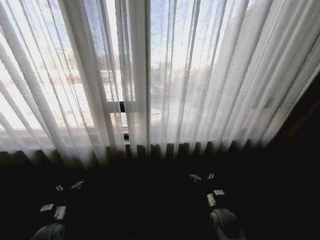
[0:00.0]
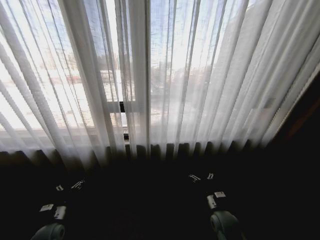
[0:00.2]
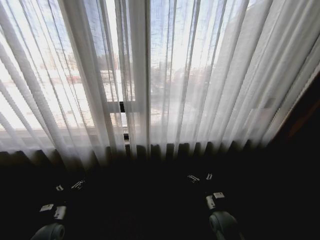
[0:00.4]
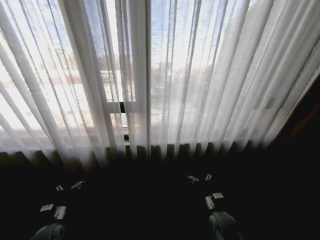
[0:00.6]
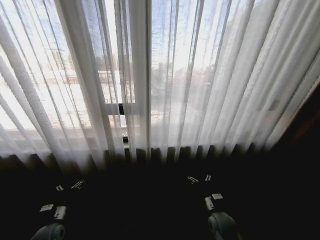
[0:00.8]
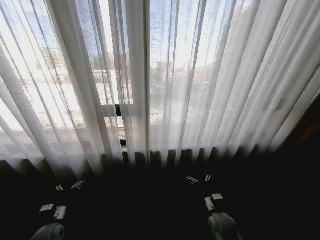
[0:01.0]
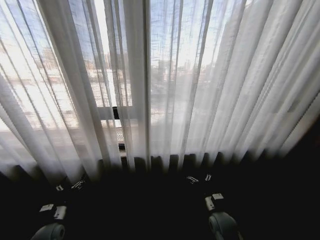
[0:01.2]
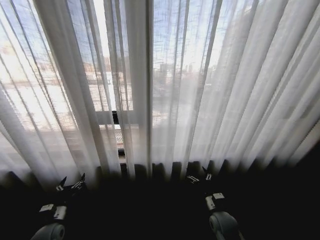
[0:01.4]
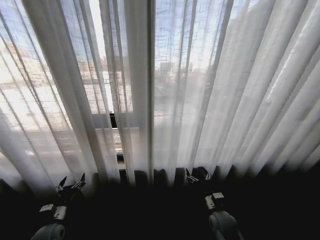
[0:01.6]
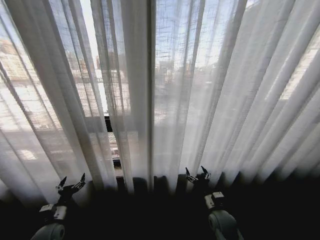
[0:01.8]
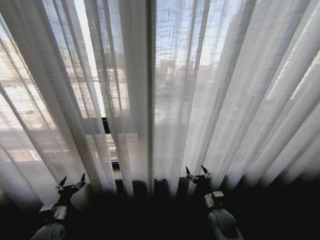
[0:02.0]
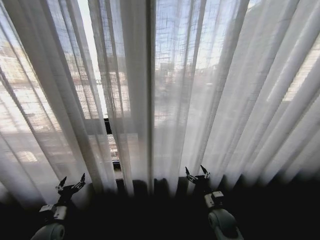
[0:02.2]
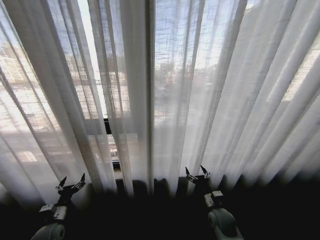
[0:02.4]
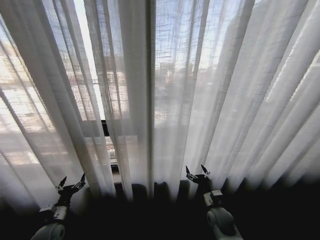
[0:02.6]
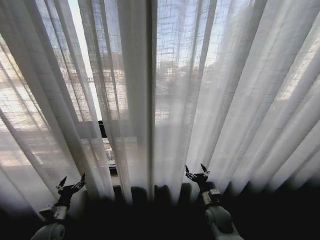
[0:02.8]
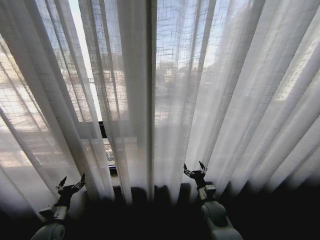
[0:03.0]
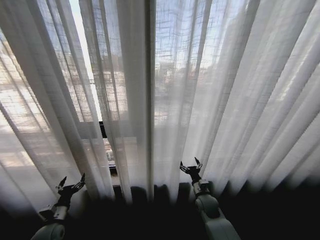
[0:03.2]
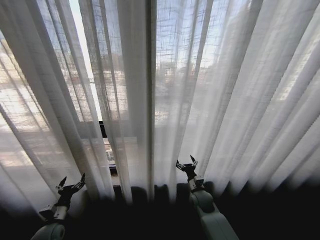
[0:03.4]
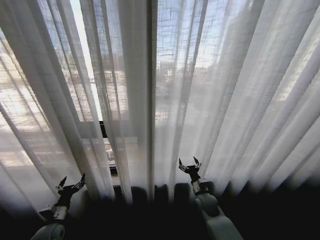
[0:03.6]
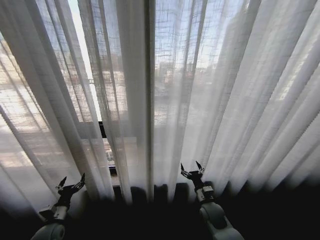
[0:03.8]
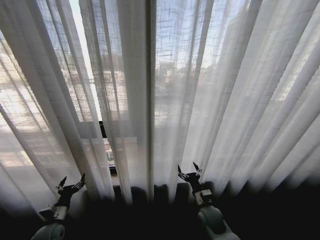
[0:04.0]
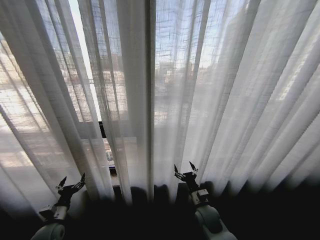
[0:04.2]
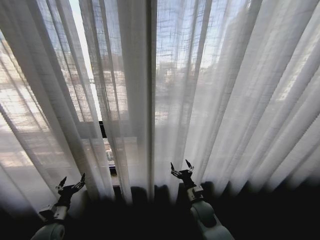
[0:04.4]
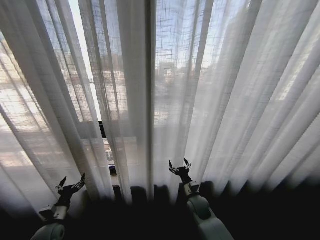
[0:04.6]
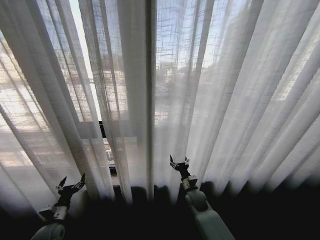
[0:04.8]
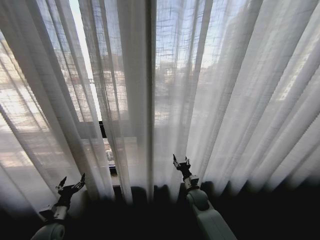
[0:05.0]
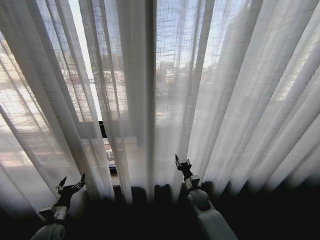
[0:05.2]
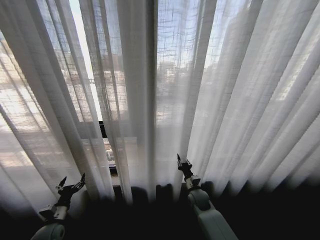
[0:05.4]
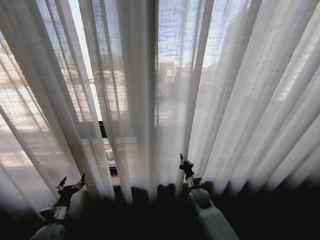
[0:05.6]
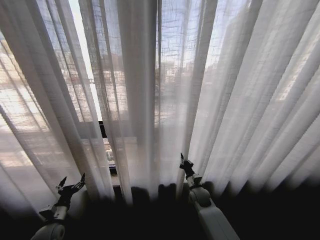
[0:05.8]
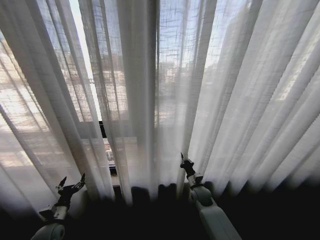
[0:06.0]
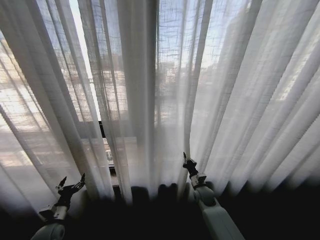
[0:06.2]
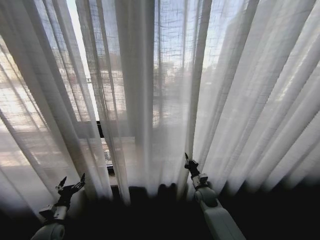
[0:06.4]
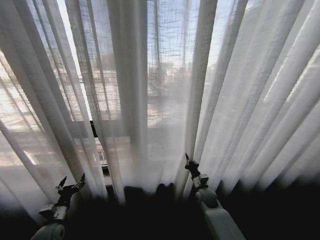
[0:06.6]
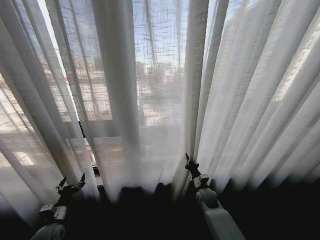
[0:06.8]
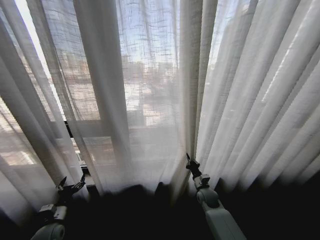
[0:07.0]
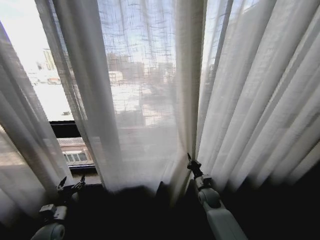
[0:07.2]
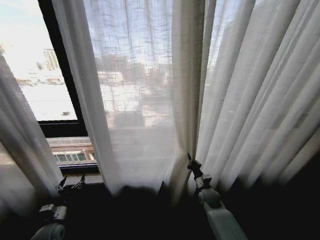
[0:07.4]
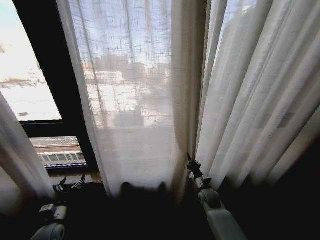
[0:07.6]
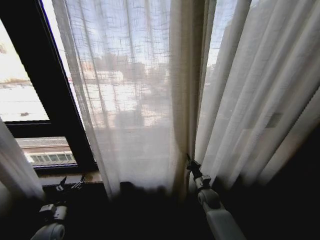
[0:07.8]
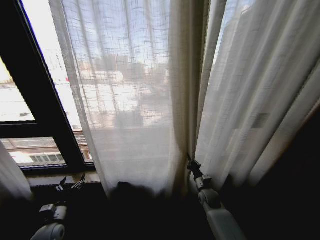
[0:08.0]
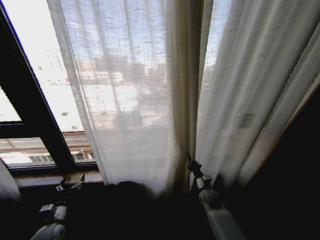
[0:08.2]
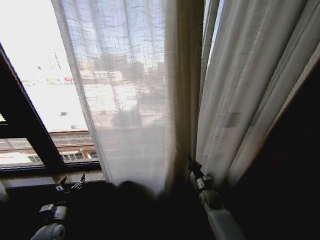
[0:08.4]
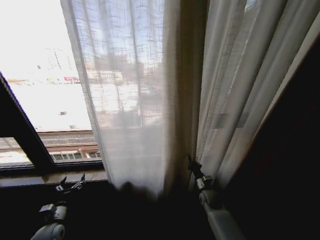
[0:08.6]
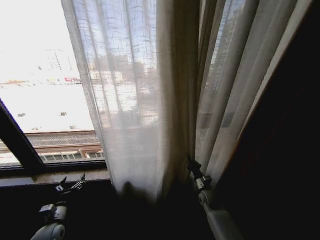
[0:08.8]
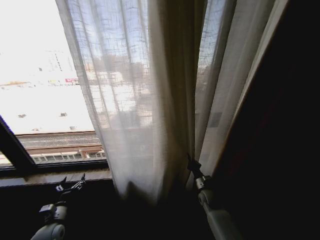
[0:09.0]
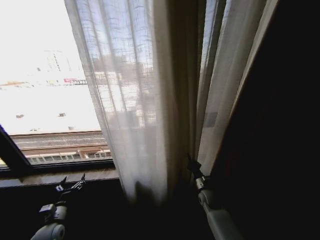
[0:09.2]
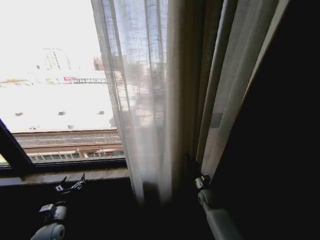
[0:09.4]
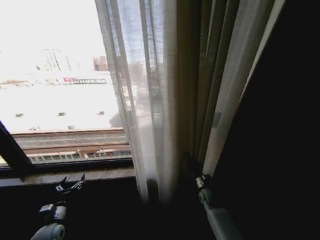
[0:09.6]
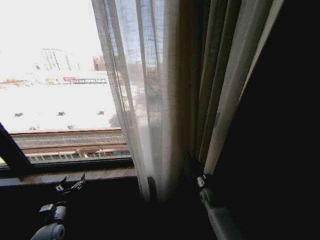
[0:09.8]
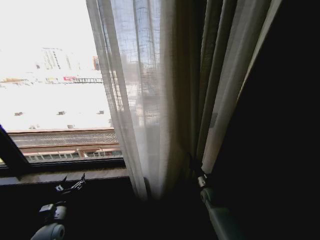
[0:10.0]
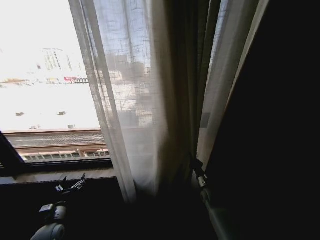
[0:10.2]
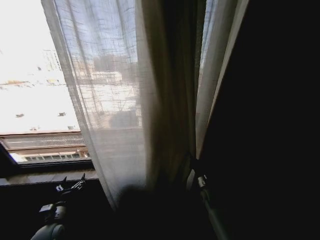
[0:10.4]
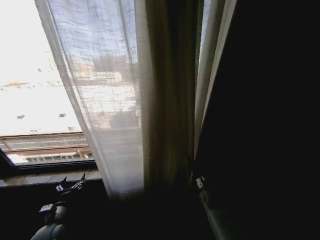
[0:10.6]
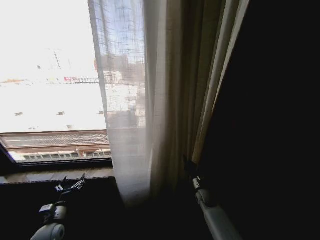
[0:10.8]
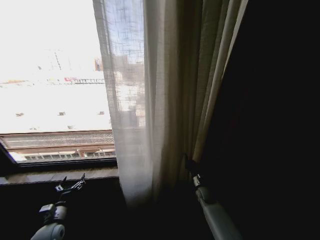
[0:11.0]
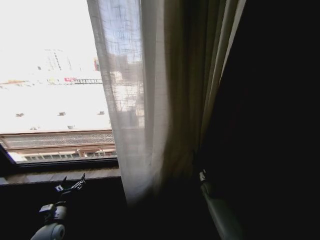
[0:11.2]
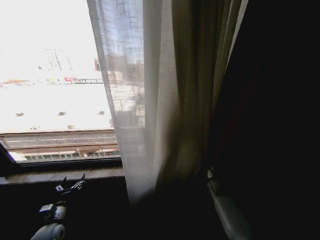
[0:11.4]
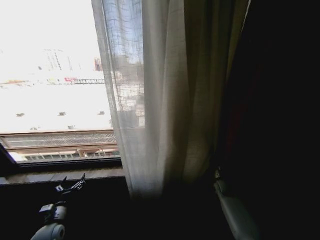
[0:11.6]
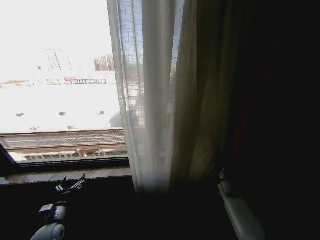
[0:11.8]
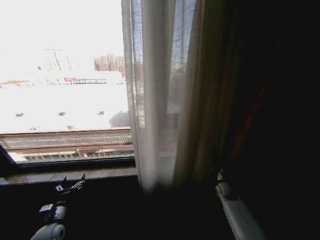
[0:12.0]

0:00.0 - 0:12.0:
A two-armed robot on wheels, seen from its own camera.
Task of the whole recording: Open the curtains by pulling them apart, changing their state from closed to fully open.
0:03.0 - 0:04.4: The right gripper goes some 5 cm to the left.
0:04.4 - 0:06.0: The right gripper shifts approximately 10 cm forward, and closes up.
0:10.4 - 0:12.0: The right gripper goes about 10 cm to the right.

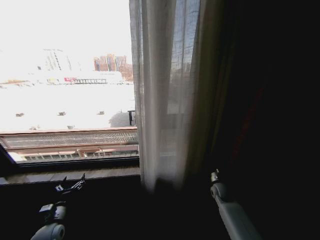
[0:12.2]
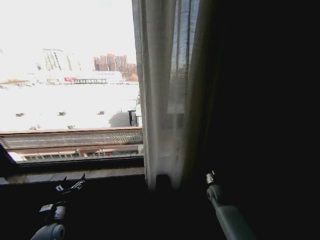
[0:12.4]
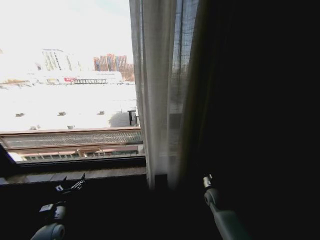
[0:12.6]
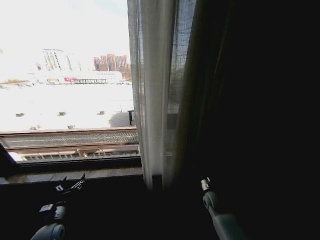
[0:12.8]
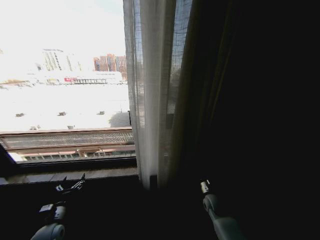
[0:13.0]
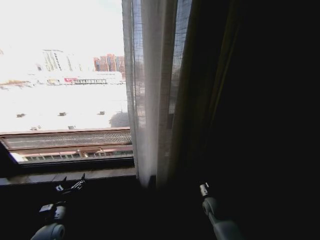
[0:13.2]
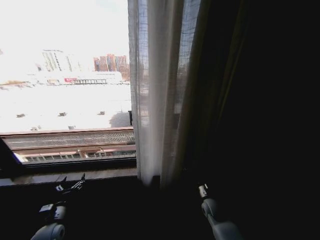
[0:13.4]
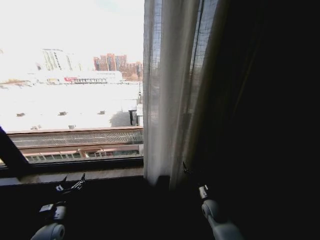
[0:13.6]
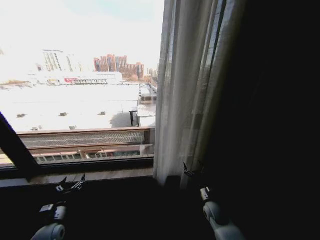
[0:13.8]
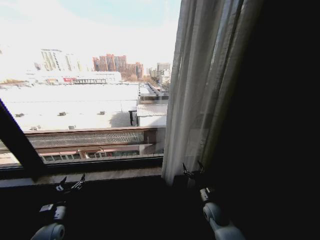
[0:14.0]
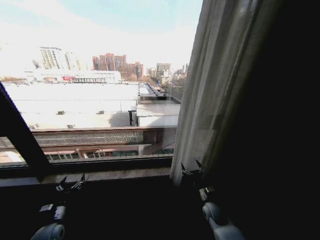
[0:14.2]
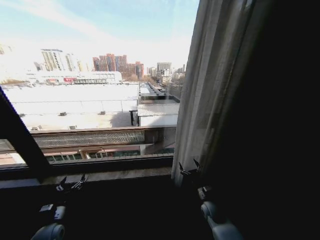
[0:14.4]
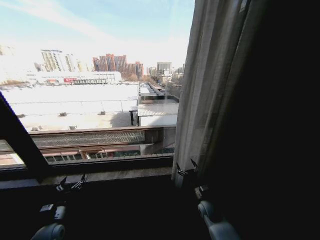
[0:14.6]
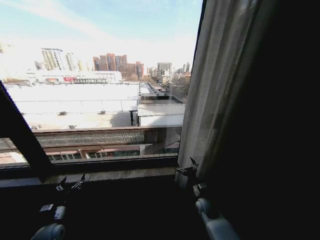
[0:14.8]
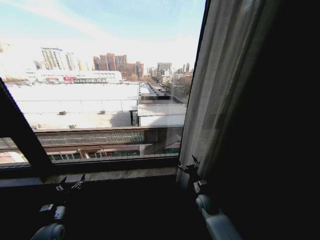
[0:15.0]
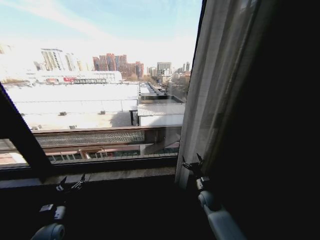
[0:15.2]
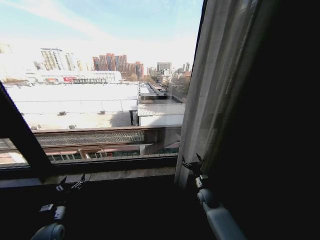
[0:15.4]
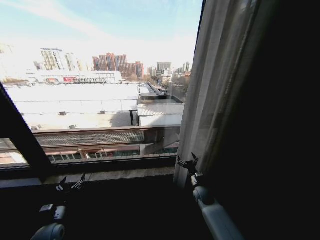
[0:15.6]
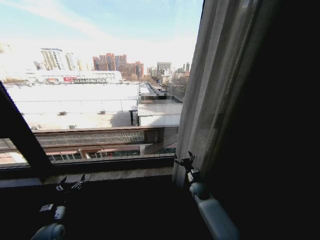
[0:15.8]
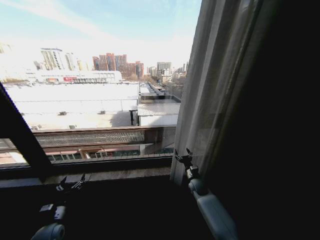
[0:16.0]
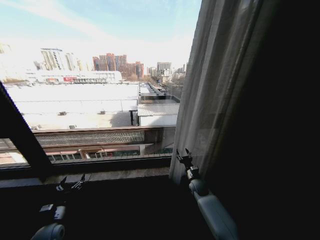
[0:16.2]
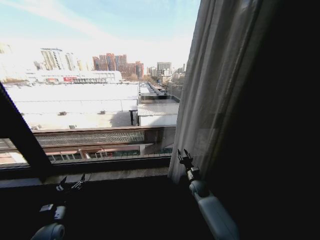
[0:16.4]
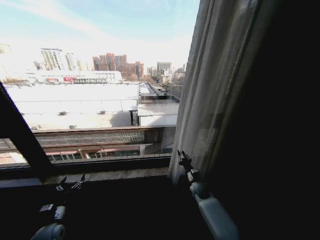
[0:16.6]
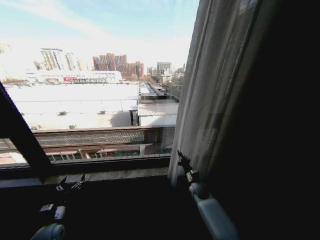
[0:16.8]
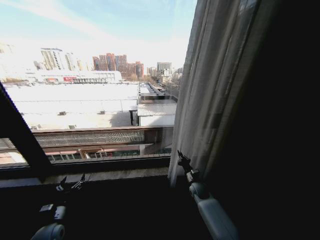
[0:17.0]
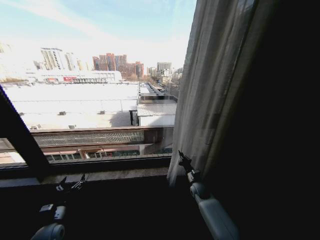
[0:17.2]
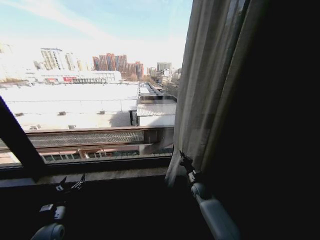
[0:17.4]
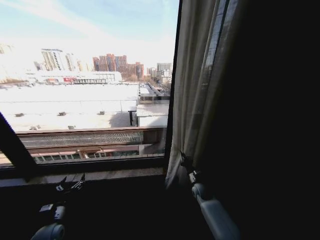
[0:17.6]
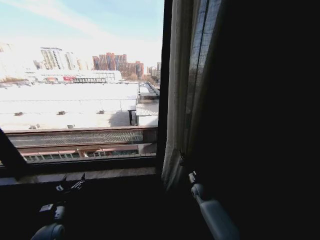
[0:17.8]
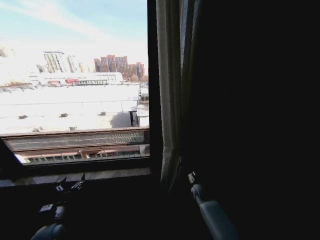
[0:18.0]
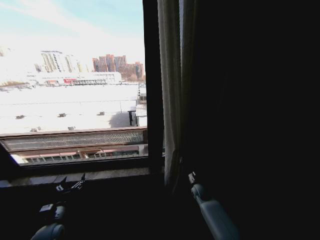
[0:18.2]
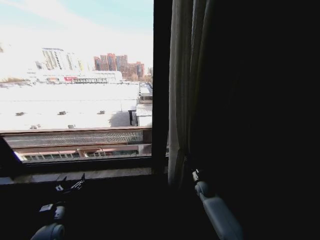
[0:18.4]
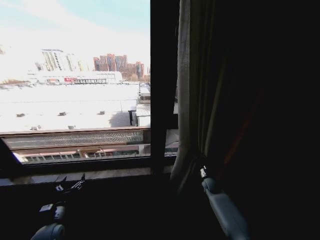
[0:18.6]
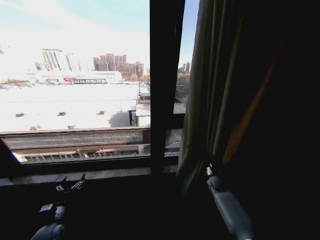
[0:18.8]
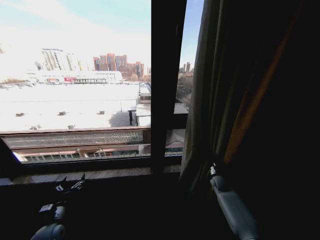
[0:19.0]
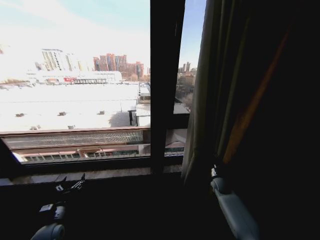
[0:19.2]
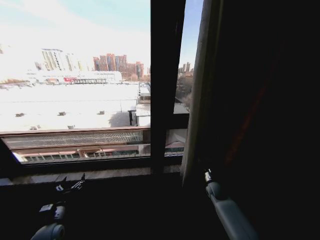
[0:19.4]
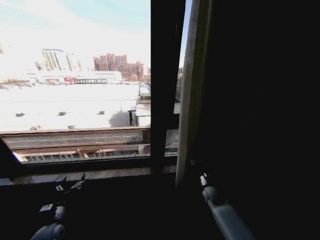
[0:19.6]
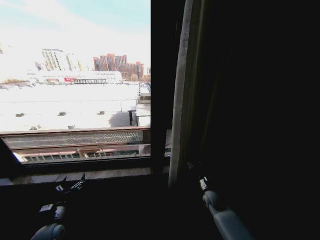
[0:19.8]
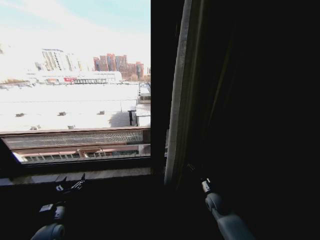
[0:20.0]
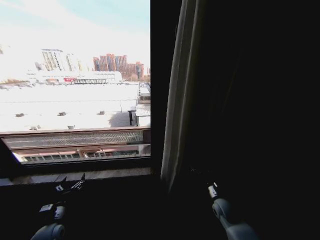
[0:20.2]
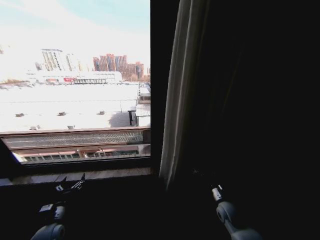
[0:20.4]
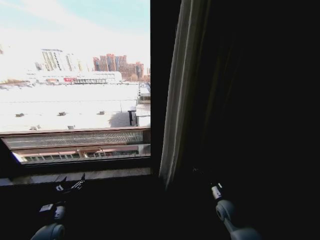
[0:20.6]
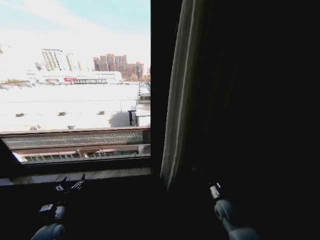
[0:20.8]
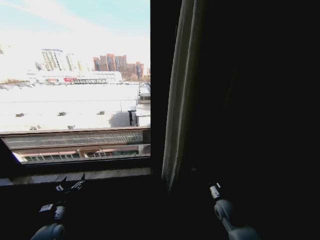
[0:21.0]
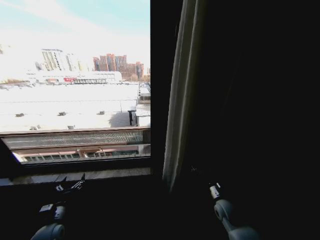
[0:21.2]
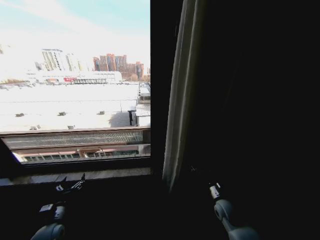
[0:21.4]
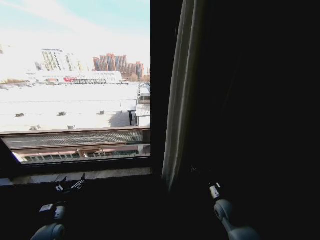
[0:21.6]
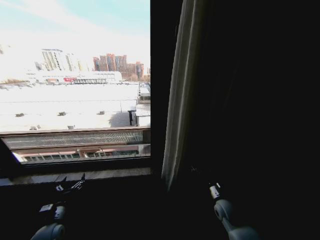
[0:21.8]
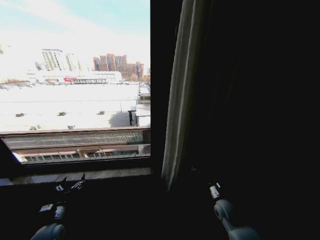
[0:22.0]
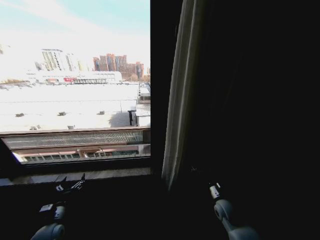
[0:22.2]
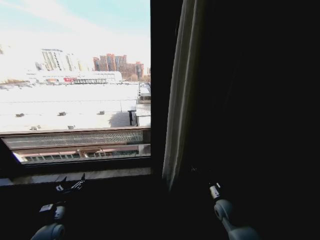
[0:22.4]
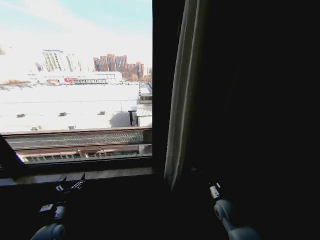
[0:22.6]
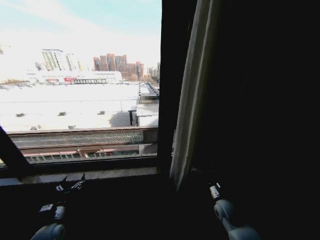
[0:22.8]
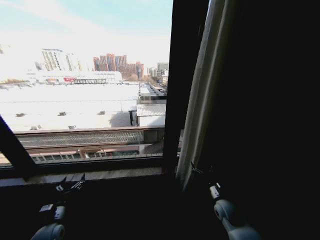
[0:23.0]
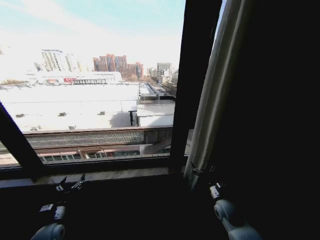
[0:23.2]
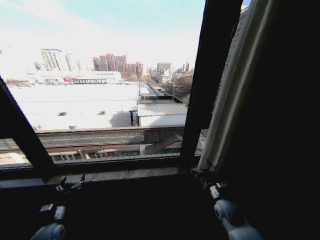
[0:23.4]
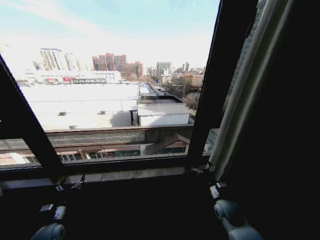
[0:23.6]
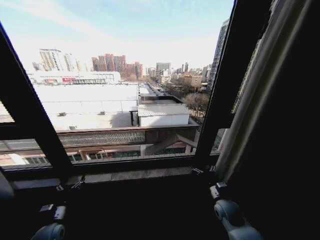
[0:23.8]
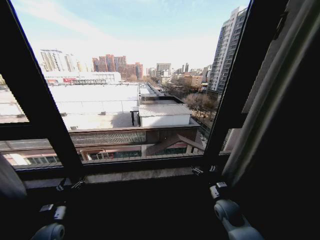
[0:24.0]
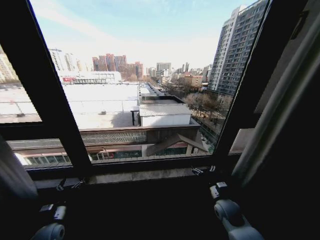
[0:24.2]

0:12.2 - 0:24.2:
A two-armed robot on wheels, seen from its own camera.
Task of the whole recording: Open the curtains by pulling them apart, changing their state from closed to fully open.
0:12.2 - 0:13.8: The right gripper shifts approximately 10 cm backward and to the left, and opens its fingers.
0:13.8 - 0:15.2: The right gripper travels forward by some 5 cm.
0:15.2 - 0:16.6: The right gripper is displaced forward by some 5 cm, and closes.
0:18.2 - 0:19.8: The right gripper opens its fingers.
0:19.8 - 0:21.2: The right gripper goes approximately 5 cm backward, and opens.
0:21.2 - 0:22.6: Neither gripper changes place.
